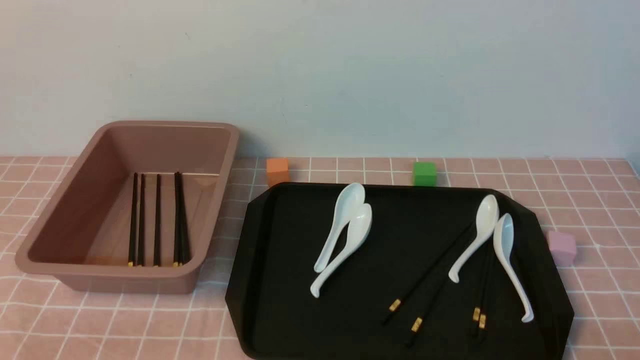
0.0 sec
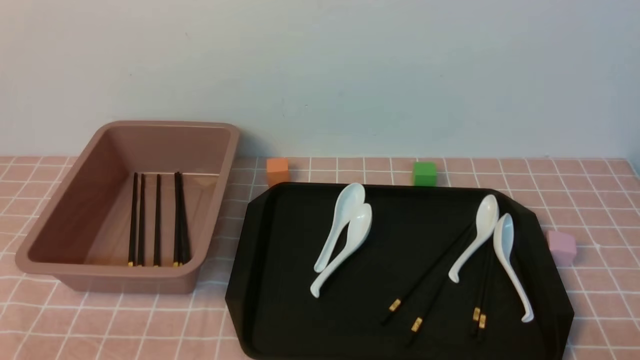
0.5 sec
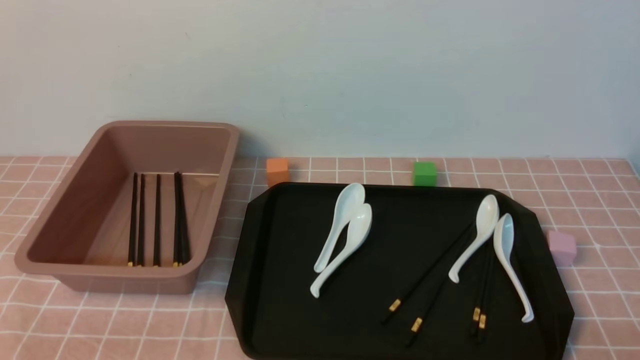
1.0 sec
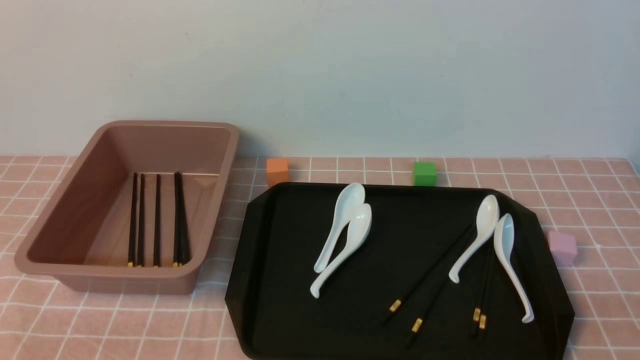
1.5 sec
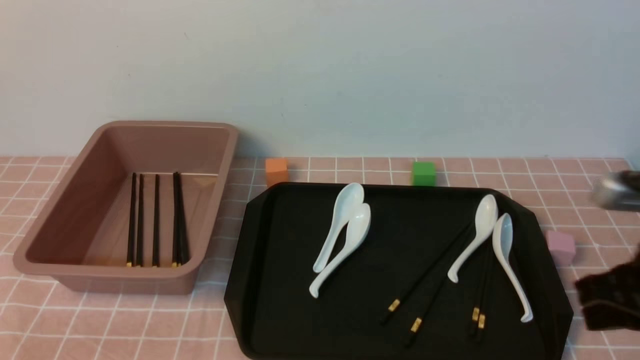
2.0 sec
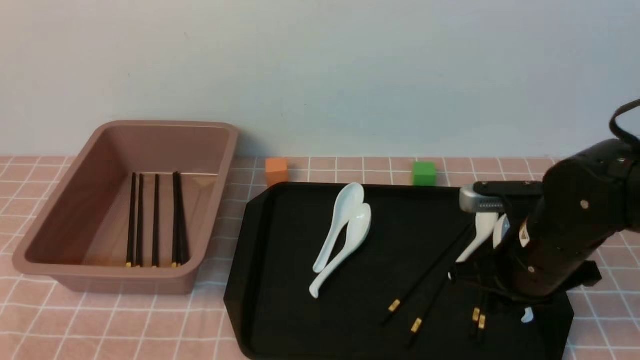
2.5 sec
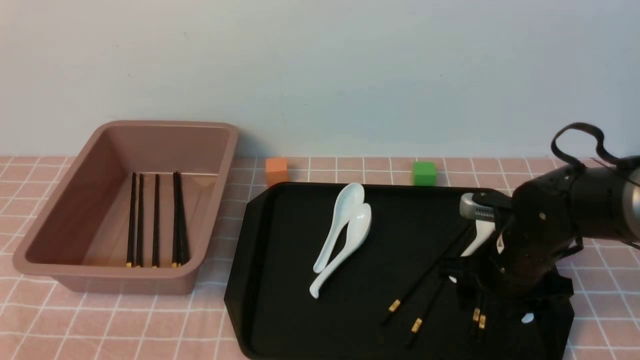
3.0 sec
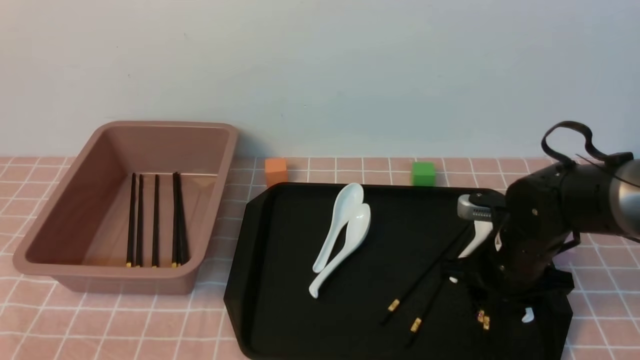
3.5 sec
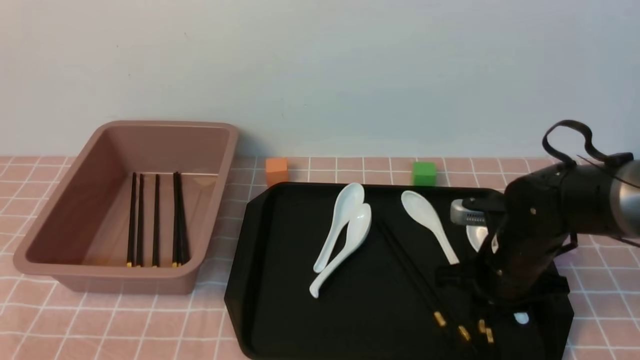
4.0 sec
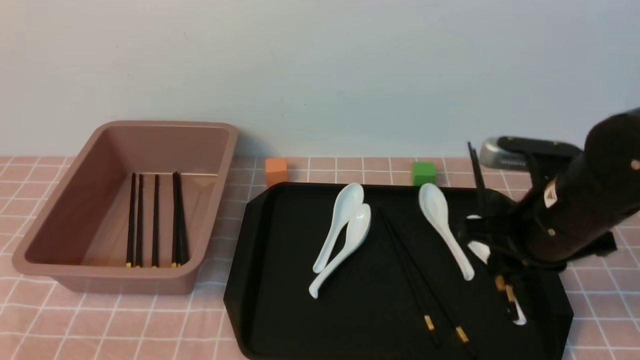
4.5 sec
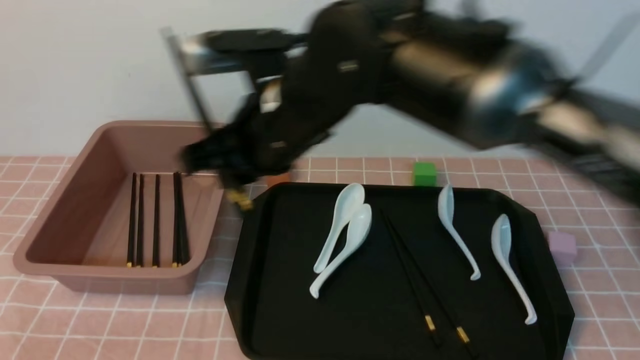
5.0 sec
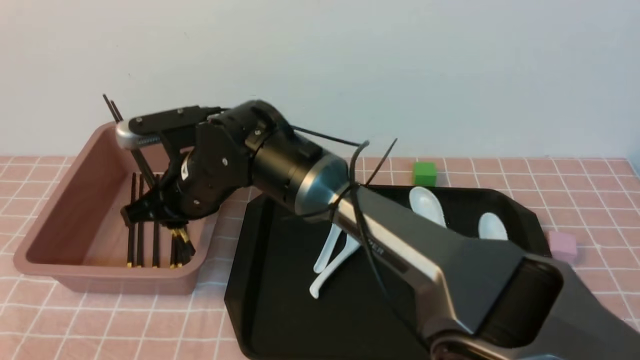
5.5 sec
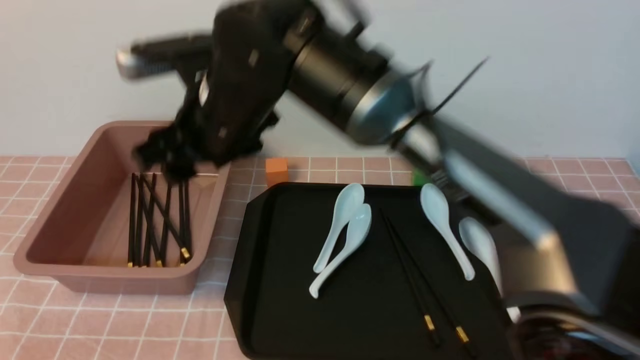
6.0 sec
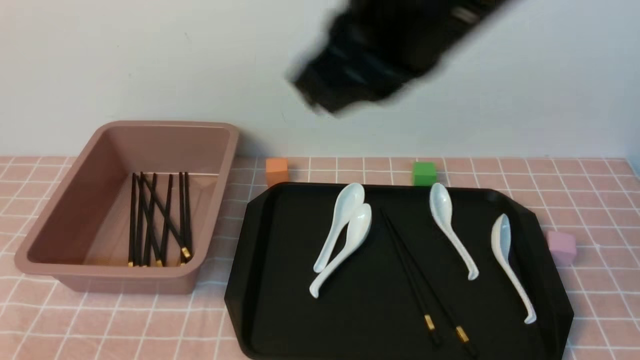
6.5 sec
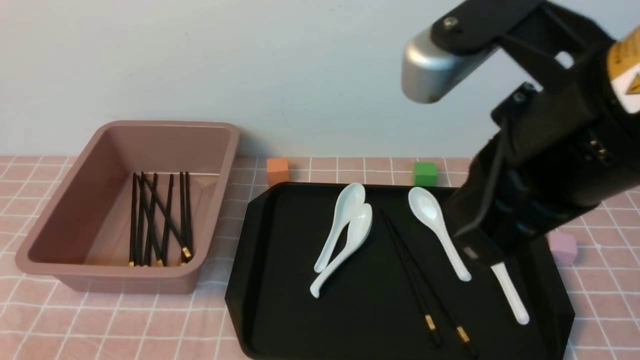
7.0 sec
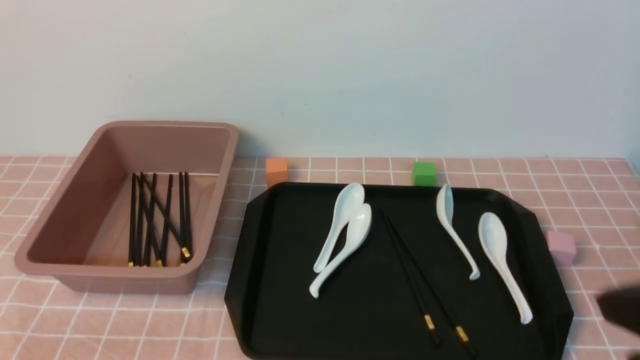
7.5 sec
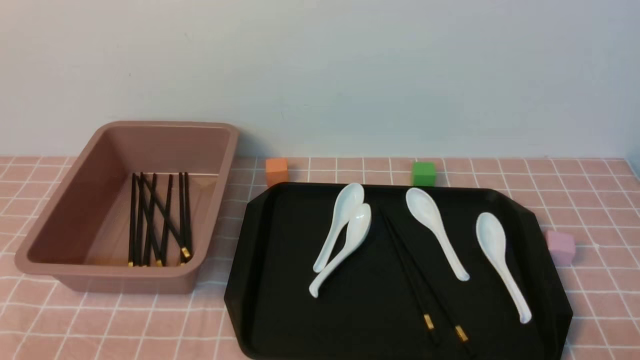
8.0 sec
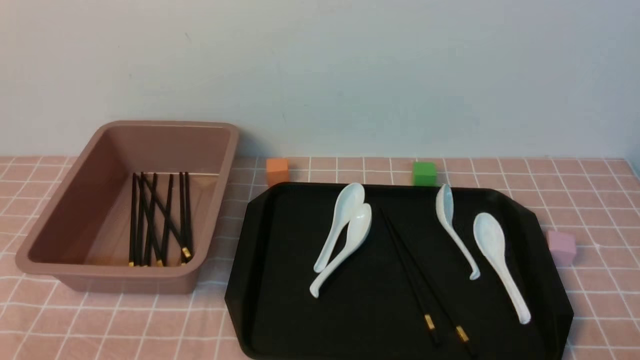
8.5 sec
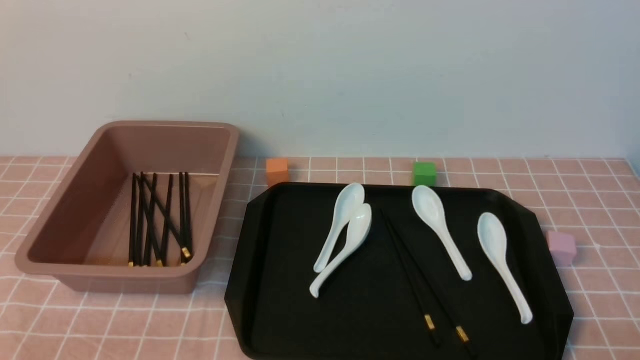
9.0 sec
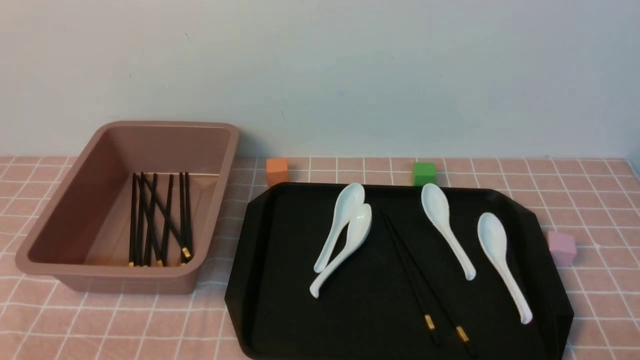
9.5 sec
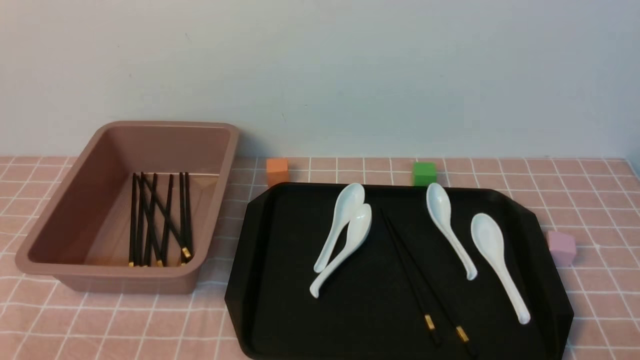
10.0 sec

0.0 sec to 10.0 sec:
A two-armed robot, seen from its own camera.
Step, 0.0 sec to 4.5 sec: use the right arm to grab a pair of chopsticks.
Step, 5.0 sec to 6.0 sec: use the right arm to put the chopsticks into the lunch box.
0.0 sec to 2.0 sec: The right gripper is displaced forward and upward by approximately 20 cm, and closes up.
2.0 sec to 4.0 sec: The right gripper moves downward, forward and to the left, approximately 15 cm, and opens and closes again.
4.0 sec to 6.0 sec: The right gripper goes about 35 cm to the left and upward, and opens.
6.0 sec to 8.0 sec: The right gripper moves to the right, backward and downward, some 50 cm, and closes.
8.0 sec to 10.0 sec: Both grippers stay about where they are.
